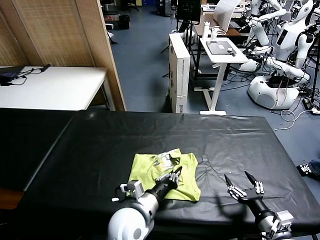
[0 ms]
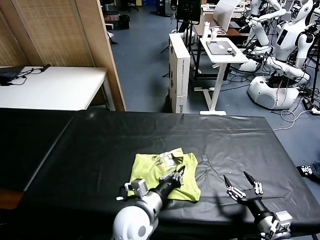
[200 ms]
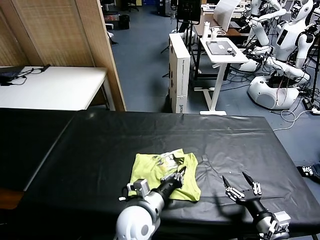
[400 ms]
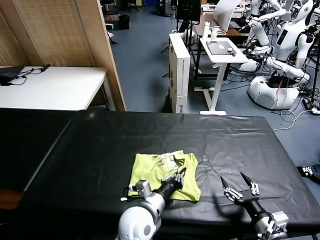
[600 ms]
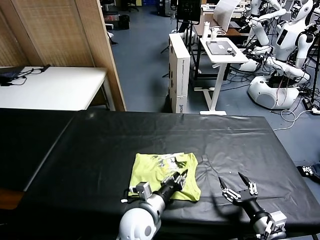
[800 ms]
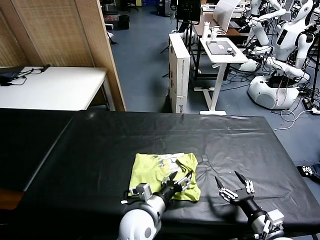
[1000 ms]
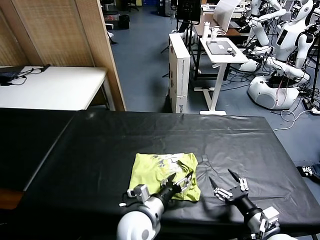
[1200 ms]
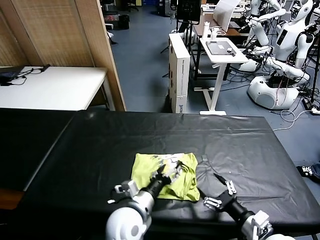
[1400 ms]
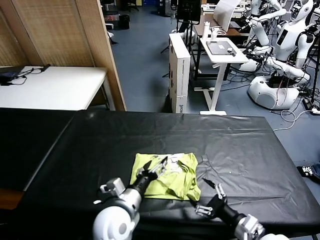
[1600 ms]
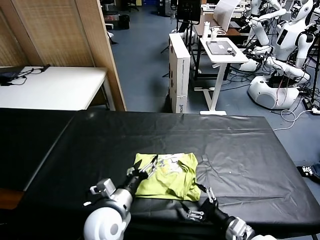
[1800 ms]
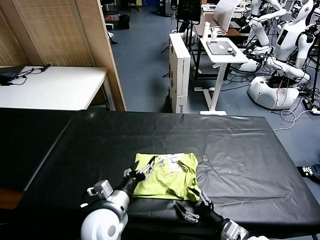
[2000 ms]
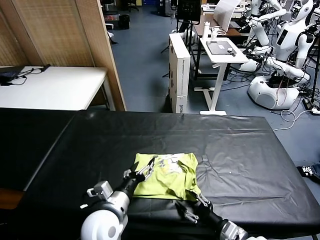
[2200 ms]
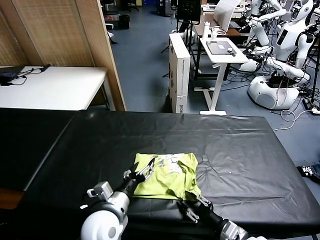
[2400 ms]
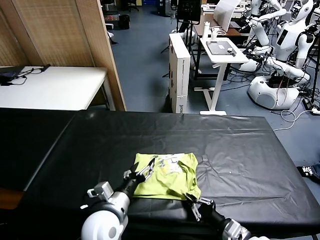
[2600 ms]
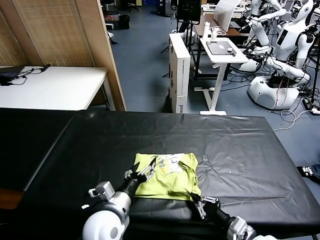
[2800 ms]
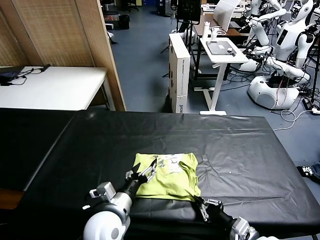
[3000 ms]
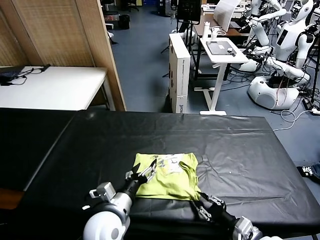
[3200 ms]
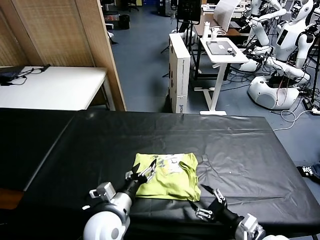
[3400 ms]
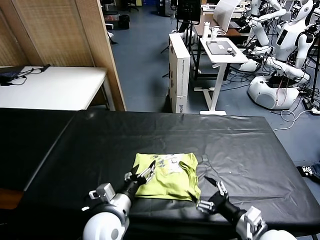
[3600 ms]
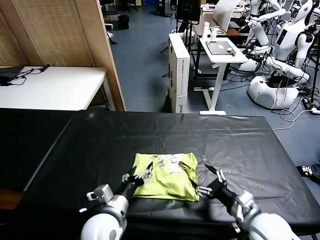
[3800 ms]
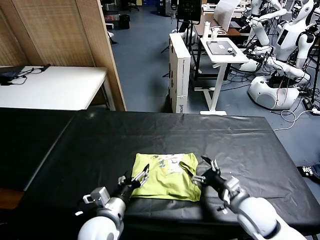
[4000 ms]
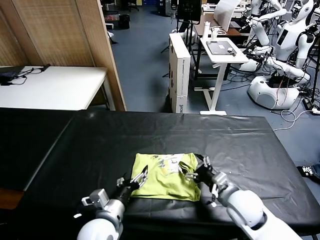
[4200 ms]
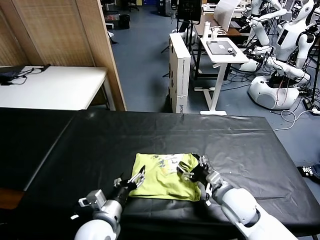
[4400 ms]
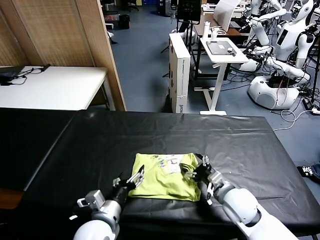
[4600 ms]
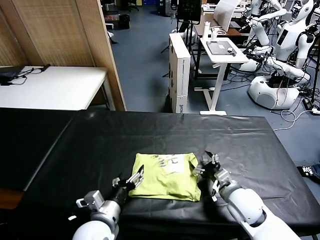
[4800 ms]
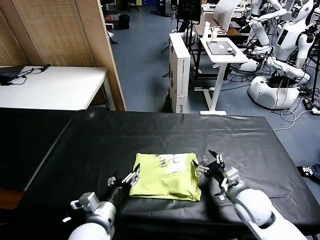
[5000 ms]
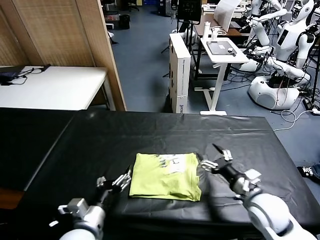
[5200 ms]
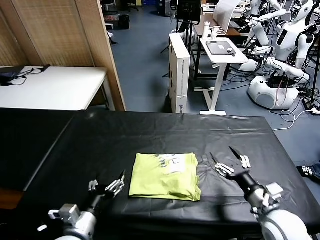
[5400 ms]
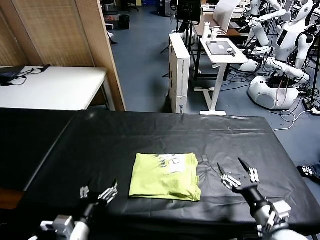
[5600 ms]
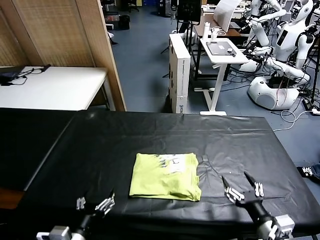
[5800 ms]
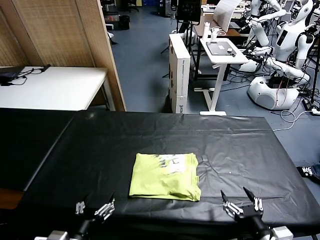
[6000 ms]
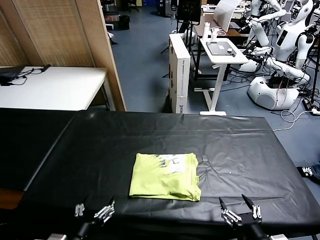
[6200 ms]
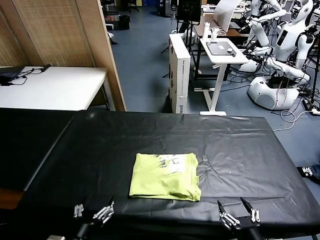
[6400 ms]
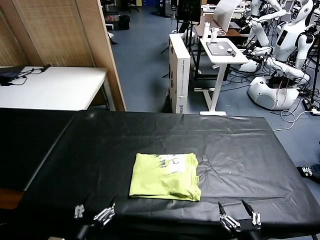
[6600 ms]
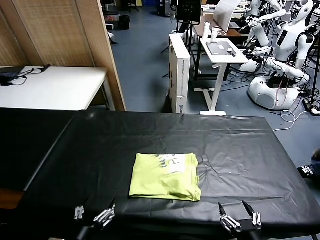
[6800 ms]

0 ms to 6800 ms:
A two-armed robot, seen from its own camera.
Task of the whole recording: fold and organize the clothes.
0 ms to 1400 ms: The left gripper opens.
1400 ms to 2800 ms: The right gripper closes its fingers, while the left gripper heads to the left, covering approximately 5 cm.
2800 ms to 4000 ms: The right gripper travels forward by about 10 cm, and opens up.
4000 ms to 5400 ms: The right gripper changes place by approximately 5 cm, while the left gripper shifts approximately 5 cm to the left.
5400 ms to 6800 ms: The left gripper goes roughly 10 cm backward. Meanwhile the right gripper shifts approximately 15 cm backward.
